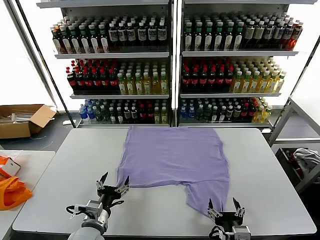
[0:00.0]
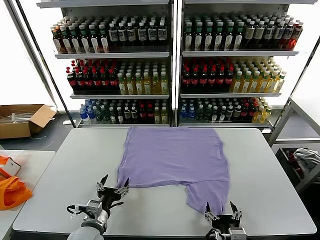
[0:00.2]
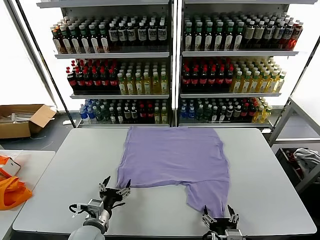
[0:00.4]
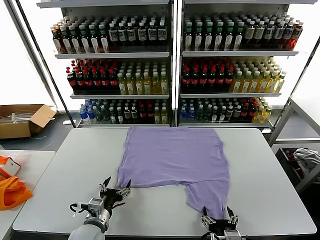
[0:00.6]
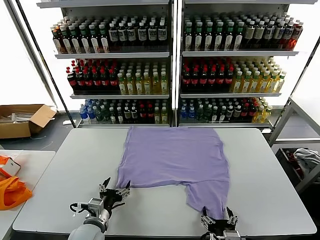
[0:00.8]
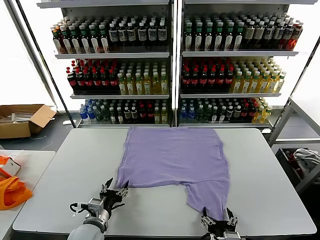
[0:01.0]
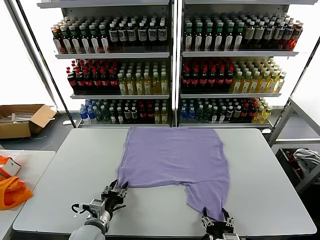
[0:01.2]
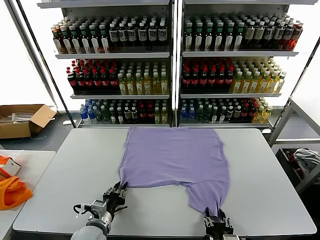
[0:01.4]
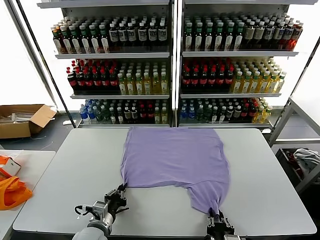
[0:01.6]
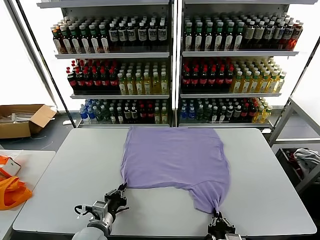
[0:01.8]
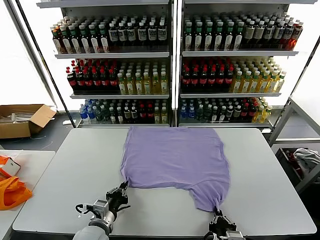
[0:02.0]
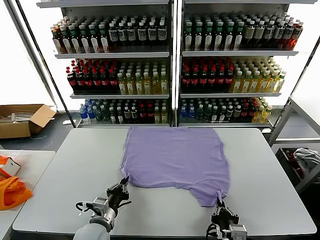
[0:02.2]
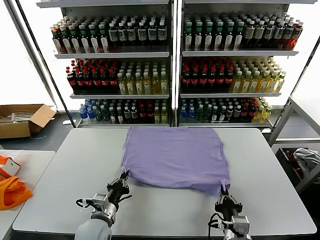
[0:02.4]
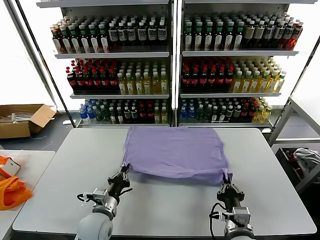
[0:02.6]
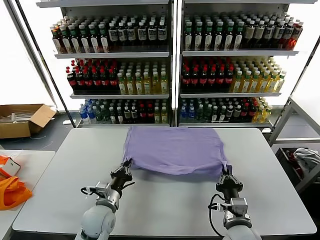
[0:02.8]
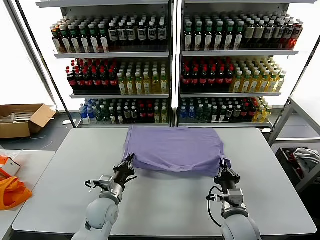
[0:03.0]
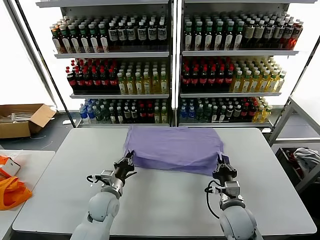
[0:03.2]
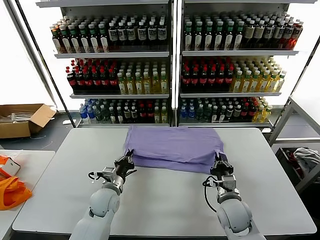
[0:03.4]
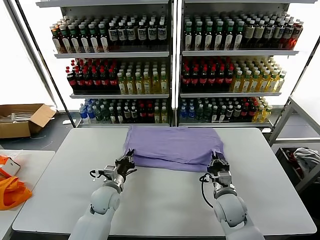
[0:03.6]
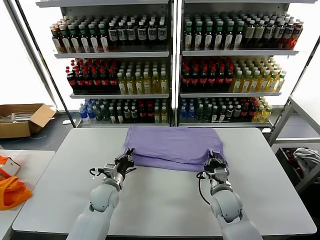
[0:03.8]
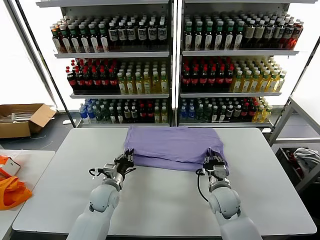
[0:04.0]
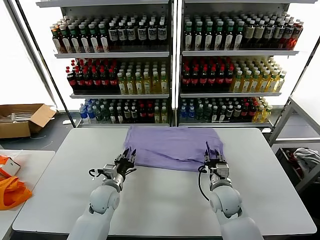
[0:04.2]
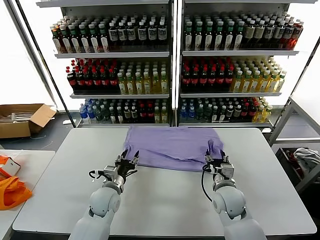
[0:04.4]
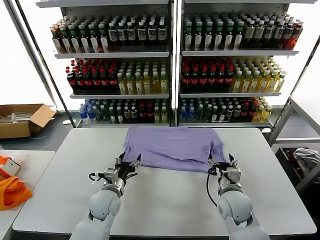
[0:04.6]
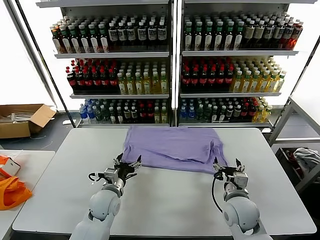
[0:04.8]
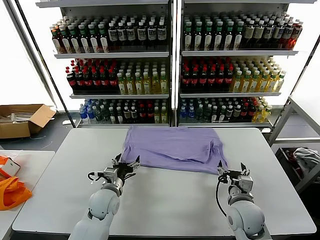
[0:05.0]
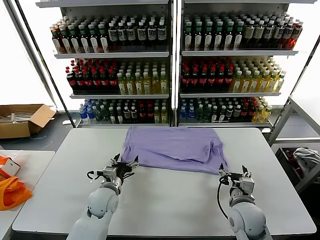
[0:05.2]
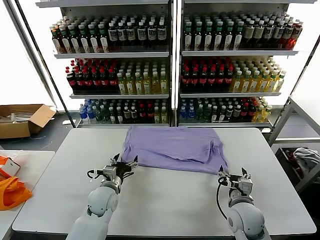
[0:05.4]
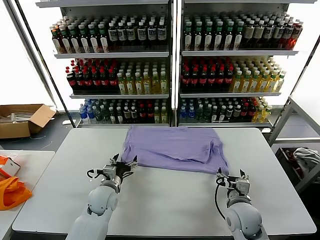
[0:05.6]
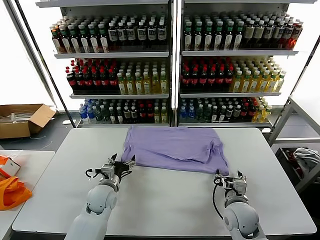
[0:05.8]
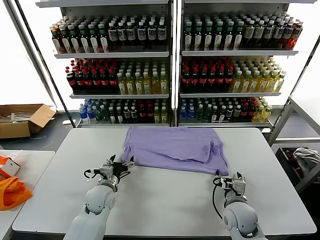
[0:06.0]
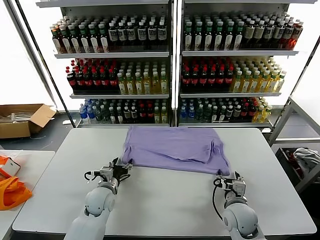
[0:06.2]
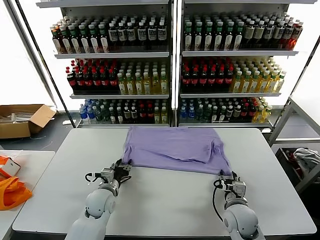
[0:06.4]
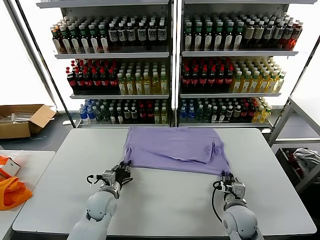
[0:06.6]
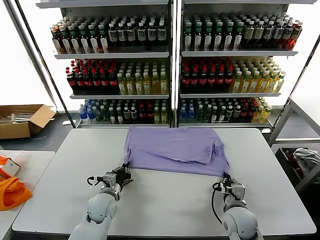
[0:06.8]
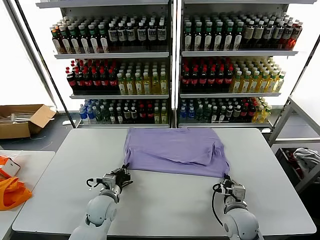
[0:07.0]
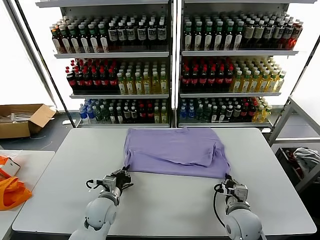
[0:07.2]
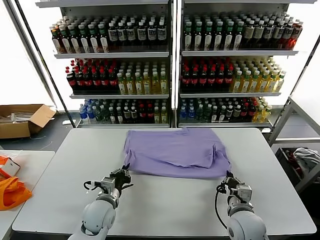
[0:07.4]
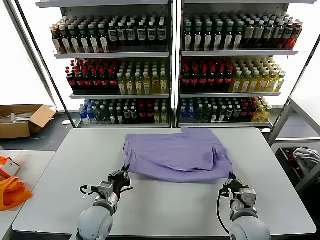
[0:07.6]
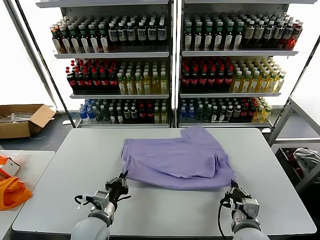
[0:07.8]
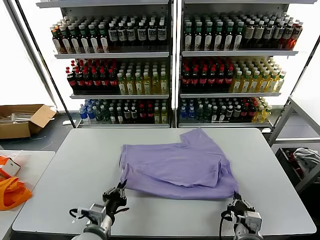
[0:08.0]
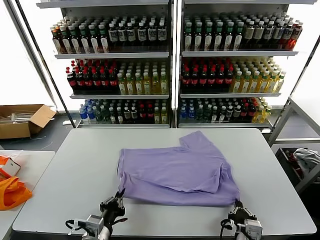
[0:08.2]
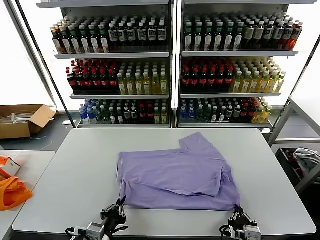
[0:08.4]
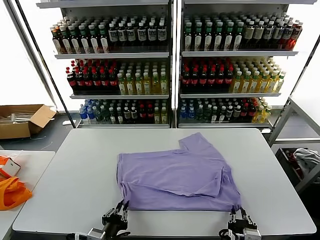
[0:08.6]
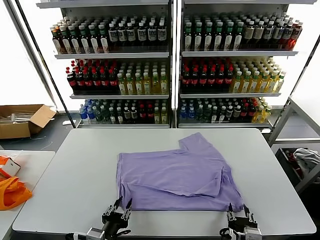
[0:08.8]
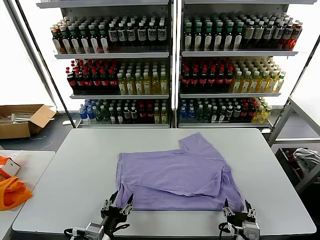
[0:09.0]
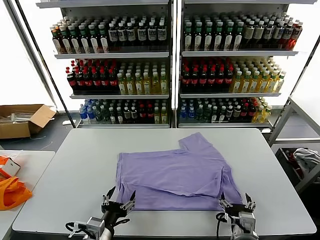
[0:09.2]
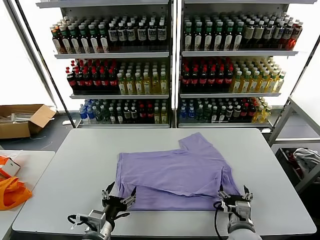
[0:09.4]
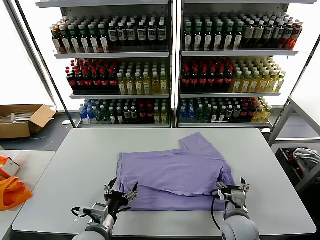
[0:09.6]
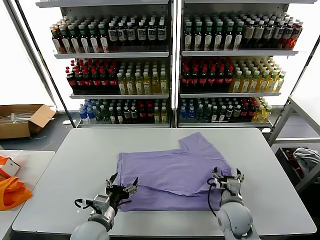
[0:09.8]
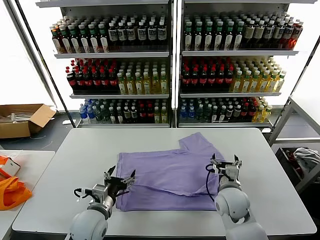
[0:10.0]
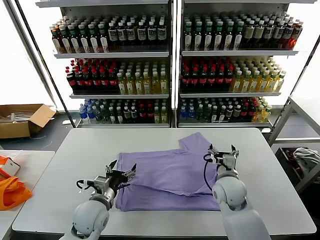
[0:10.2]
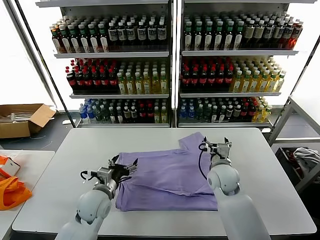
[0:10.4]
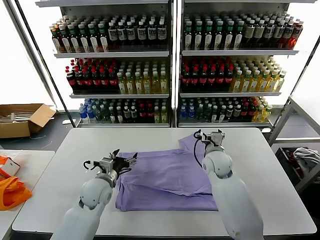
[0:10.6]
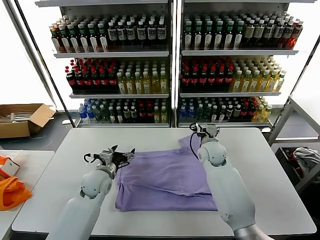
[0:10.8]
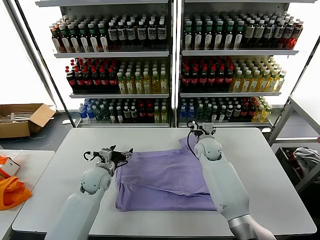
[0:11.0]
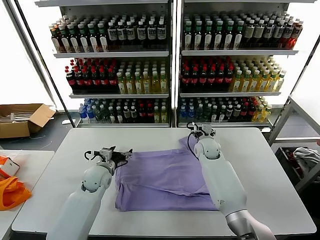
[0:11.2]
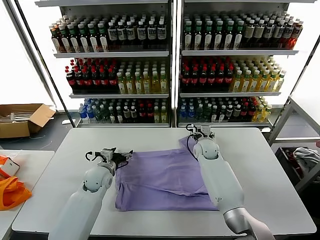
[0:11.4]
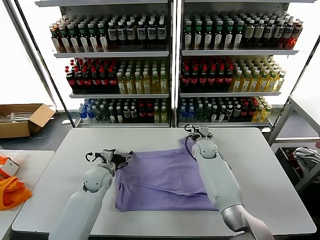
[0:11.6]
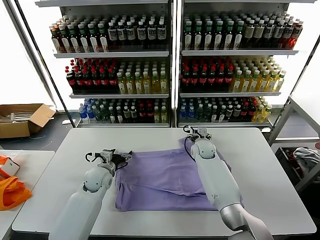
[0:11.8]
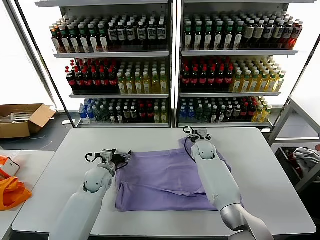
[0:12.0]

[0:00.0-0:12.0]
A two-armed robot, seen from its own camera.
Task of the whole recording: fold and organize the clothes.
Step, 0:00.0 to 0:02.0: use both grippers simultaneously to clamp the lower edge of the clothing fabric.
Step, 0:02.2 to 0:04.4: use both grippers to drag the lower edge of the fabric forward and fold it over the upper edge.
Step, 0:04.6 to 0:09.0: Drag the clothes downward with both gripper.
0:01.6 to 0:03.0: The right gripper moves forward, some 15 cm; the left gripper travels forward by roughly 10 cm.
0:03.0 to 0:04.4: The right gripper heads forward, covering roughly 5 cm, and opens up, while the left gripper opens.
0:04.4 to 0:06.0: The grippers make only small movements.
0:06.0 to 0:07.6: The grippers both shift backward by about 10 cm. The right gripper closes its fingers; the left gripper closes up.
0:07.6 to 0:09.0: The left gripper travels backward by some 10 cm, and opens up, while the right gripper opens up.
0:09.0 to 0:10.4: The two grippers go roughly 25 cm forward.
0:10.4 to 0:12.0: The right gripper heads forward and downward, covering about 15 cm; the left gripper shifts about 10 cm forward.

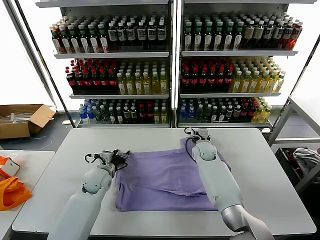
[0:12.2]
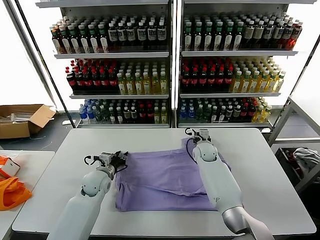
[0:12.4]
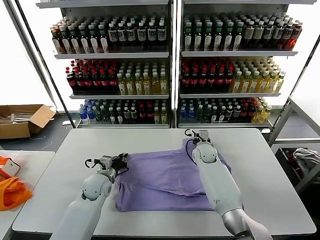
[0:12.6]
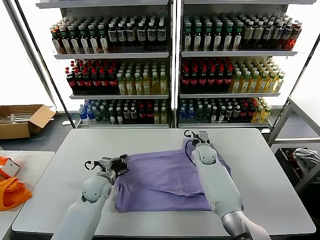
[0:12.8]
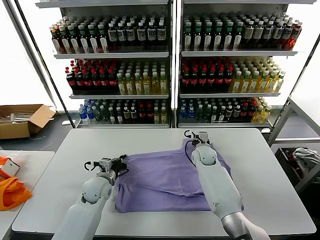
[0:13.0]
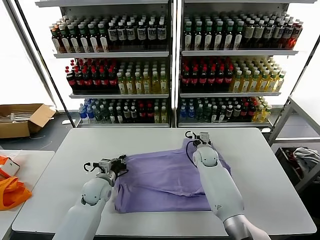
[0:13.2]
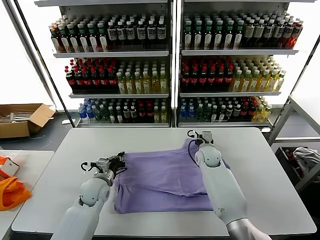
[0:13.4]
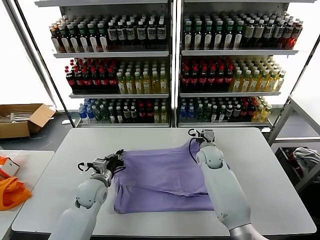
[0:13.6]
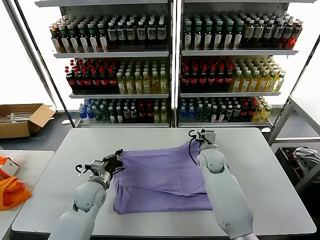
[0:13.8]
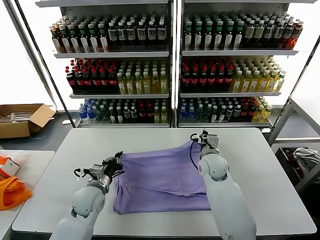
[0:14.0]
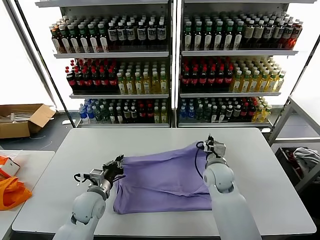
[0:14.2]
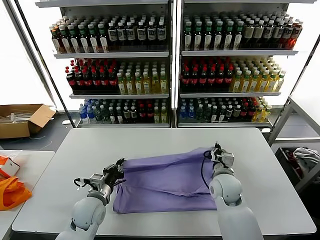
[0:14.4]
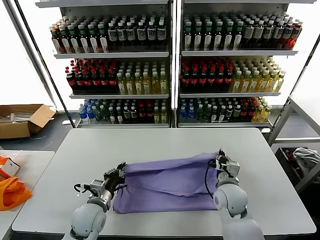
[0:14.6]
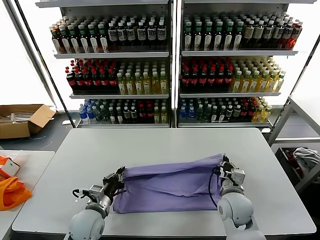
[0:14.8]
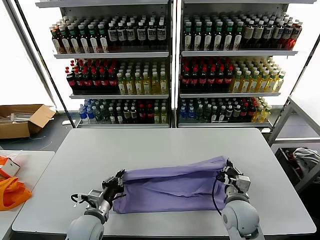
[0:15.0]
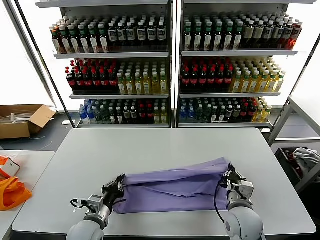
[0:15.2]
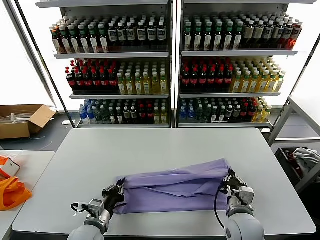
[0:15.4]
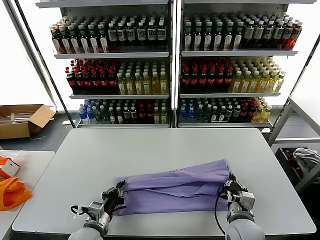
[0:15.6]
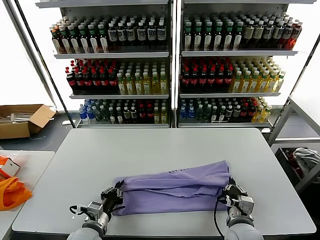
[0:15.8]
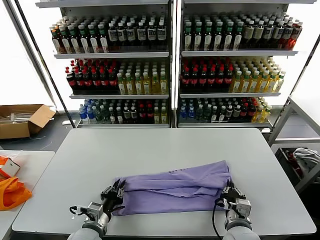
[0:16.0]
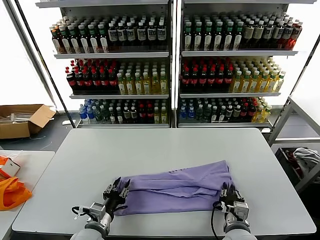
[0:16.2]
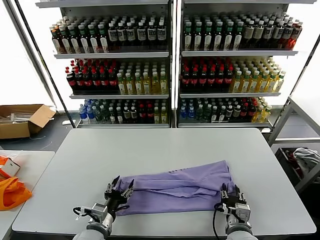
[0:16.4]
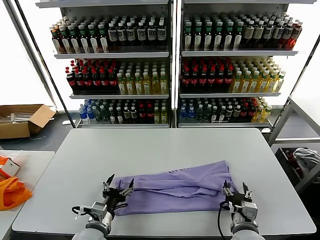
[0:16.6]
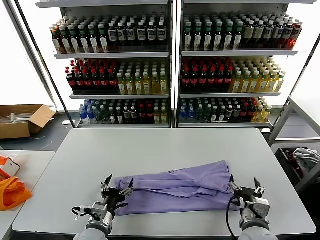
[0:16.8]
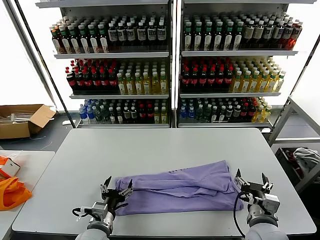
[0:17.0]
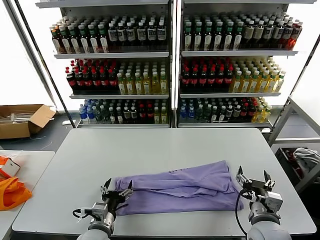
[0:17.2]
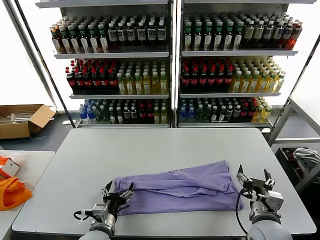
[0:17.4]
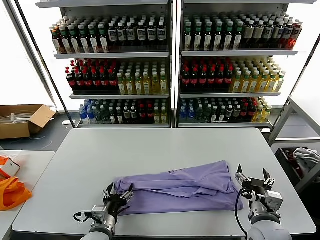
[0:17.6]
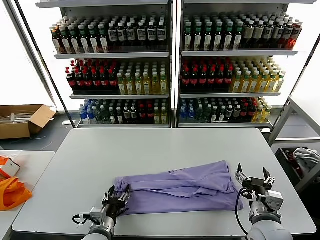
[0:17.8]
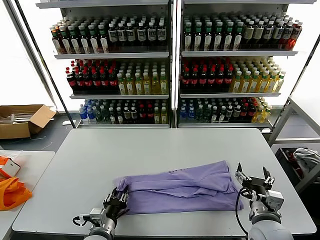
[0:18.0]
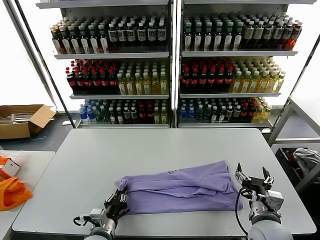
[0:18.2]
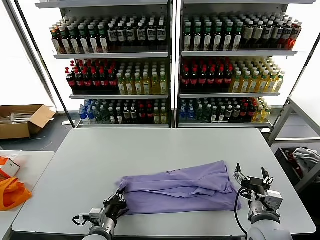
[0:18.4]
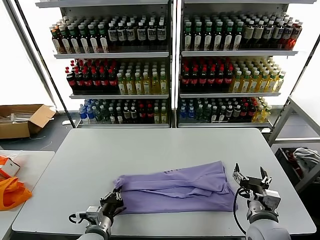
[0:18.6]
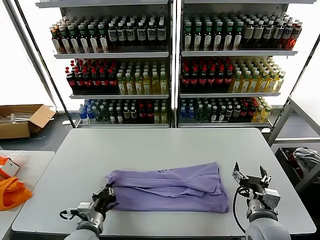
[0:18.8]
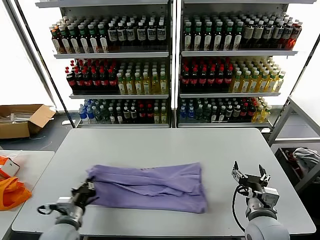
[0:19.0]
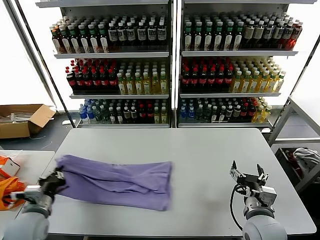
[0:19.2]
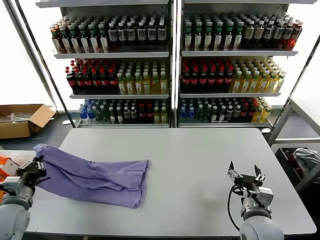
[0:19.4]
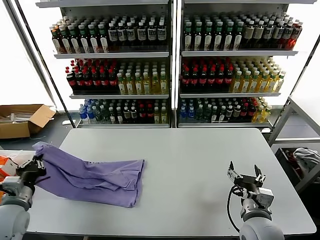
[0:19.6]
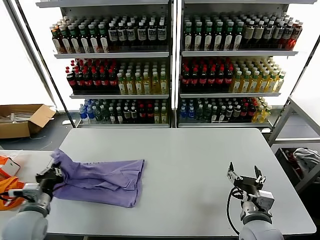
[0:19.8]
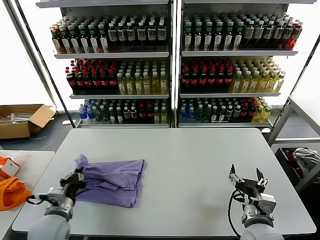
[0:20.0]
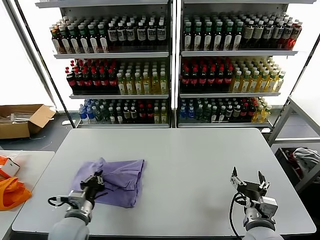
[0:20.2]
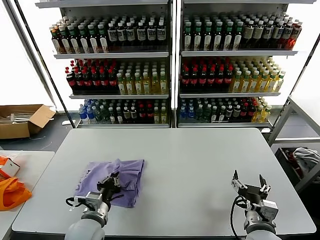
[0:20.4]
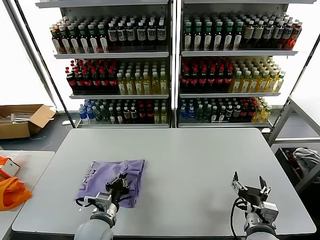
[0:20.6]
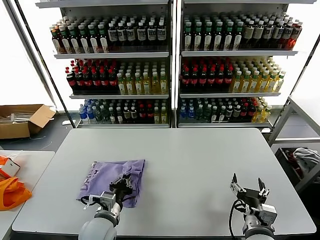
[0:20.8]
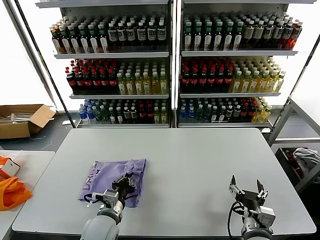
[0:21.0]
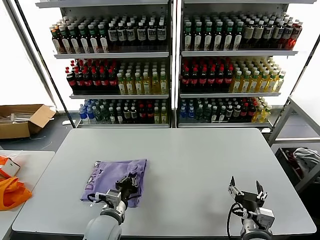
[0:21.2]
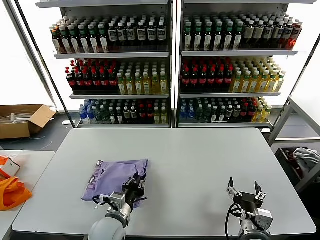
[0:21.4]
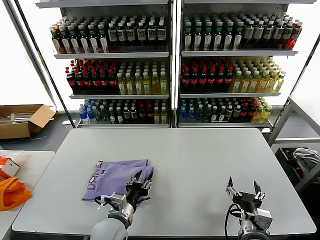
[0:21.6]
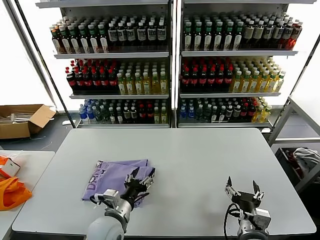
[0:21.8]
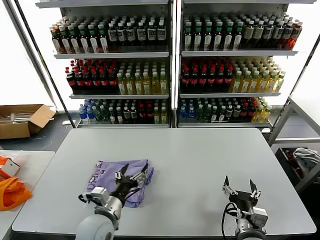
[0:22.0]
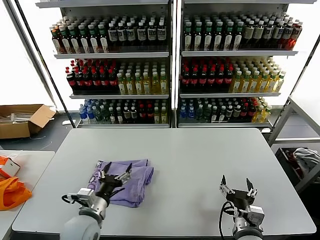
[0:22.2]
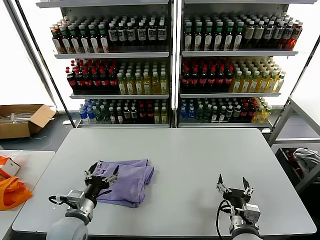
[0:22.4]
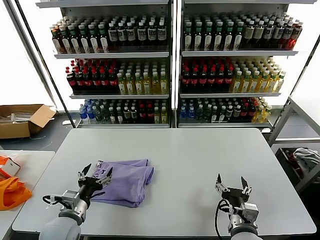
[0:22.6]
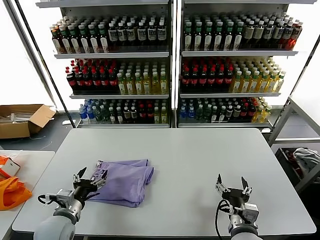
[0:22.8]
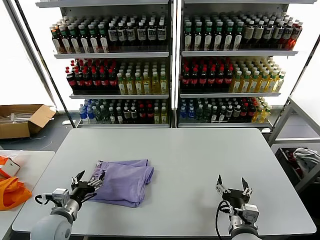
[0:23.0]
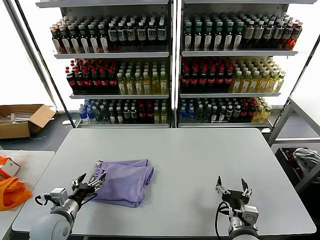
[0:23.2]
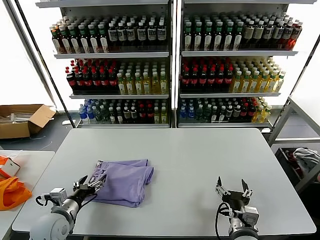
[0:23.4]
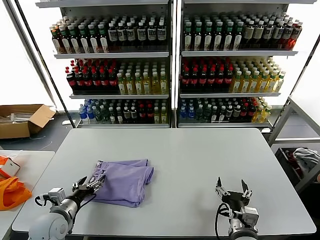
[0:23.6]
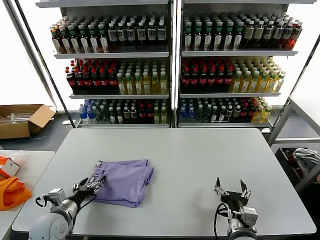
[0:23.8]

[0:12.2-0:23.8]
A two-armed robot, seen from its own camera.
Task of the whole recording: fold and organize the clothes.
Step, 0:13.6 to 0:16.6: use both grippers to drag the upper edge of the fabric backward and fold it over the lower edge.
Step, 0:16.8 to 0:18.4: use the left gripper to clamp the left edge of the fabric.
Step, 0:18.6 to 0:21.6: use the left gripper to drag the left edge of the fabric to the left and folds it over the right edge.
0:12.2 to 0:13.6: Both grippers move backward, approximately 5 cm. The right gripper closes, while the left gripper closes its fingers.
0:13.6 to 0:15.0: The left gripper shifts about 10 cm backward, while the right gripper travels backward by approximately 20 cm.
0:15.0 to 0:16.6: The left gripper opens, while the right gripper goes approximately 5 cm backward, and opens up.
0:16.6 to 0:18.0: The left gripper closes its fingers. Meanwhile the right gripper ends up about 5 cm from where it was.
0:18.0 to 0:19.4: The left gripper travels to the left and upward by roughly 25 cm, and closes.
0:19.4 to 0:21.0: The left gripper heads to the right, covering roughly 25 cm.
0:21.0 to 0:22.4: The left gripper shifts roughly 10 cm to the left, and opens.
0:22.4 to 0:23.8: The left gripper moves to the left, about 10 cm.
